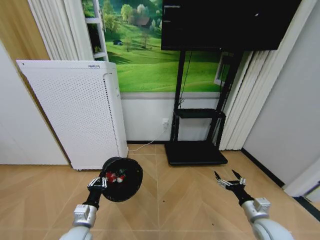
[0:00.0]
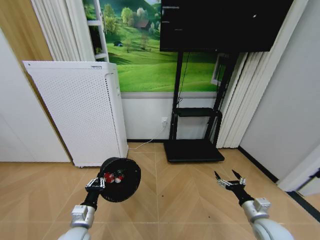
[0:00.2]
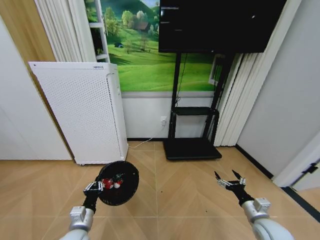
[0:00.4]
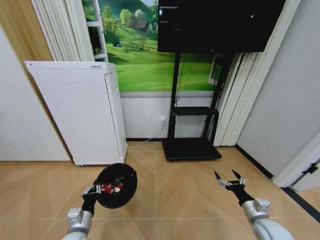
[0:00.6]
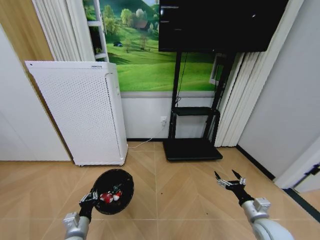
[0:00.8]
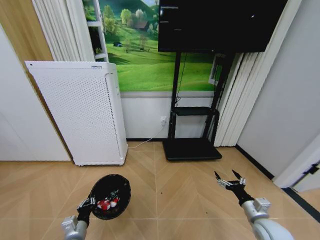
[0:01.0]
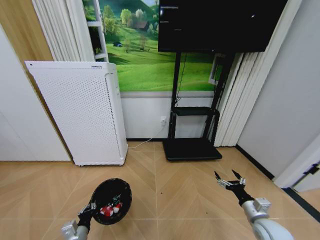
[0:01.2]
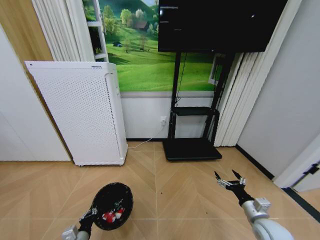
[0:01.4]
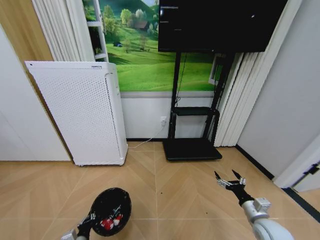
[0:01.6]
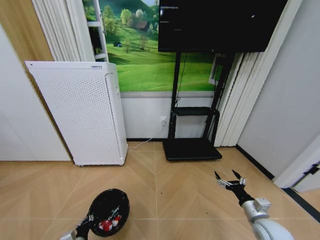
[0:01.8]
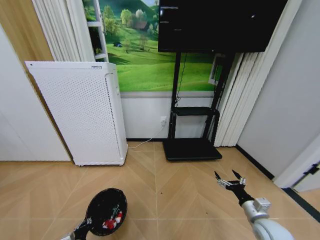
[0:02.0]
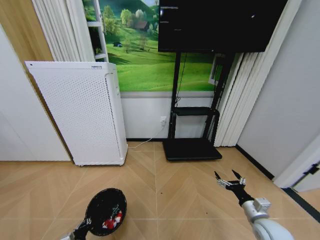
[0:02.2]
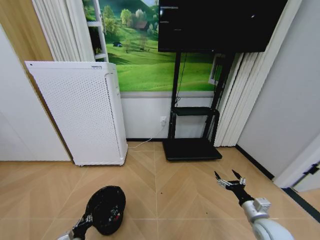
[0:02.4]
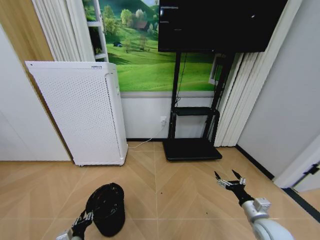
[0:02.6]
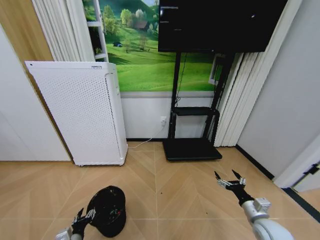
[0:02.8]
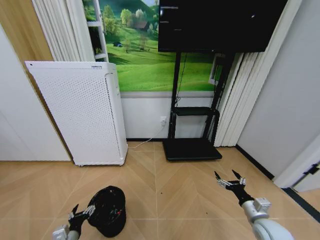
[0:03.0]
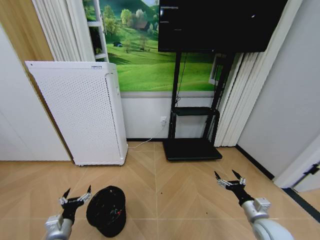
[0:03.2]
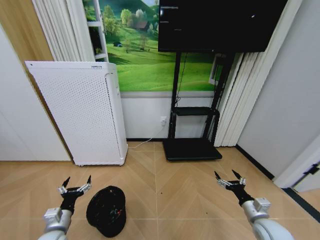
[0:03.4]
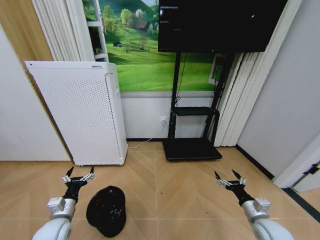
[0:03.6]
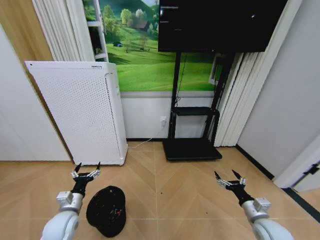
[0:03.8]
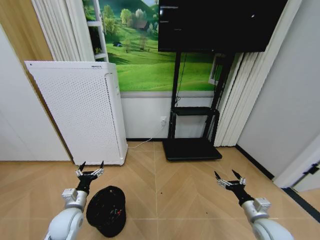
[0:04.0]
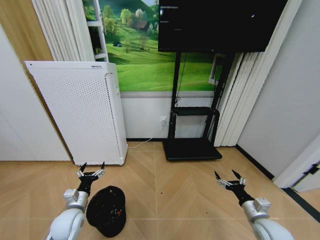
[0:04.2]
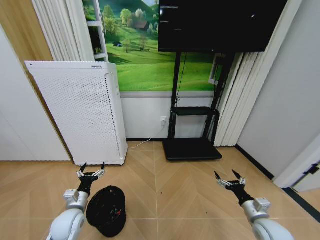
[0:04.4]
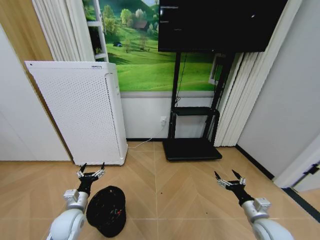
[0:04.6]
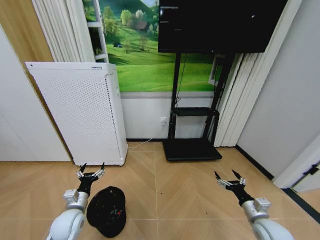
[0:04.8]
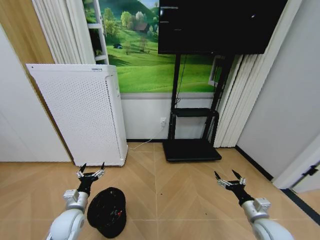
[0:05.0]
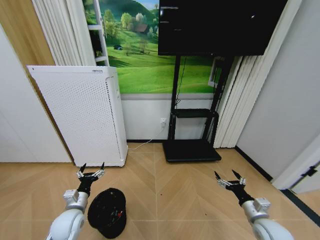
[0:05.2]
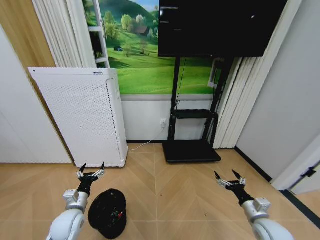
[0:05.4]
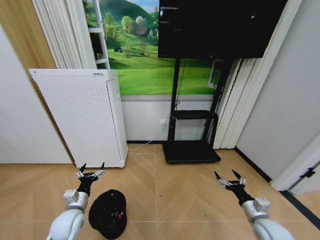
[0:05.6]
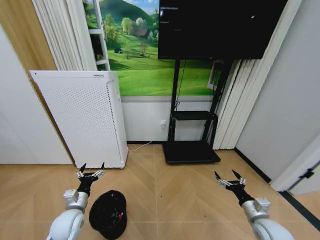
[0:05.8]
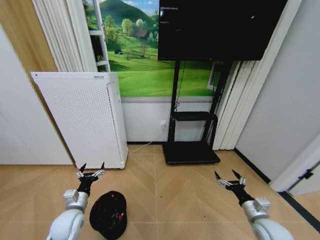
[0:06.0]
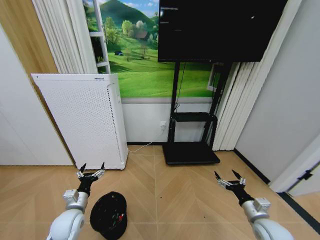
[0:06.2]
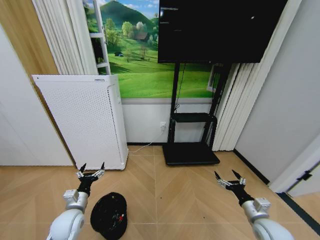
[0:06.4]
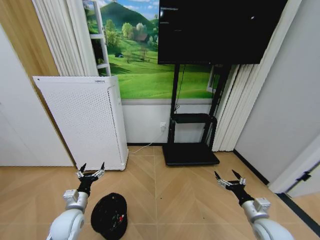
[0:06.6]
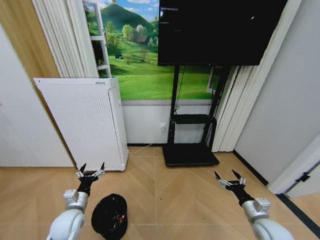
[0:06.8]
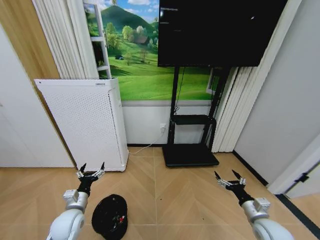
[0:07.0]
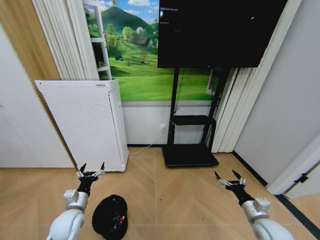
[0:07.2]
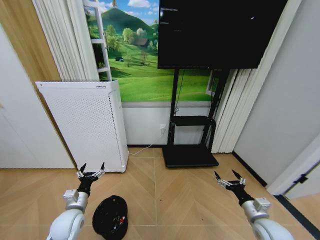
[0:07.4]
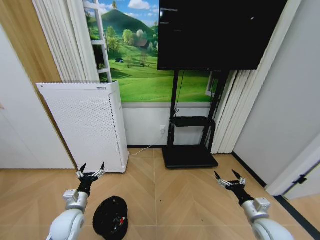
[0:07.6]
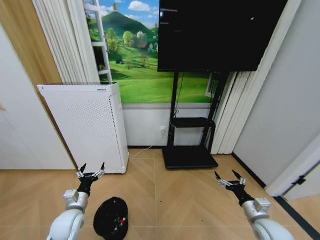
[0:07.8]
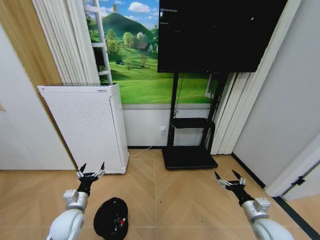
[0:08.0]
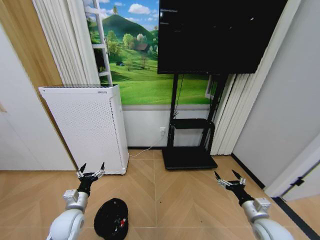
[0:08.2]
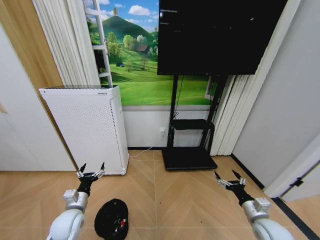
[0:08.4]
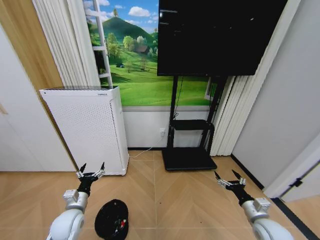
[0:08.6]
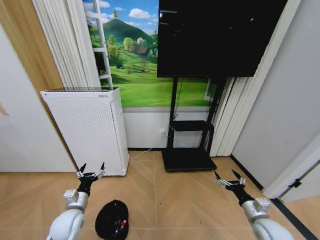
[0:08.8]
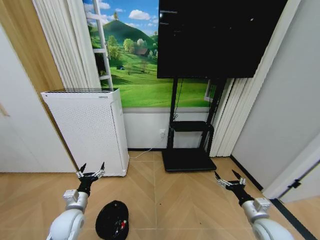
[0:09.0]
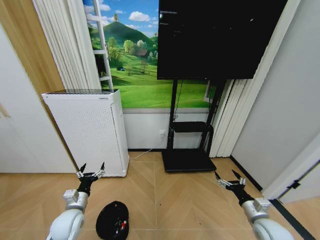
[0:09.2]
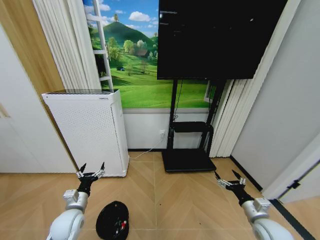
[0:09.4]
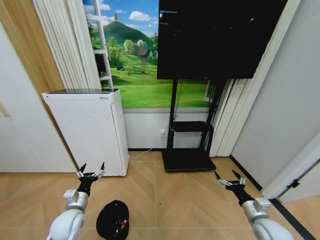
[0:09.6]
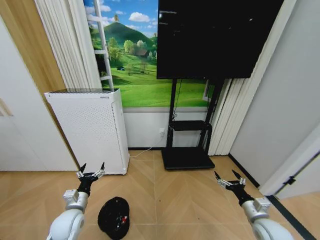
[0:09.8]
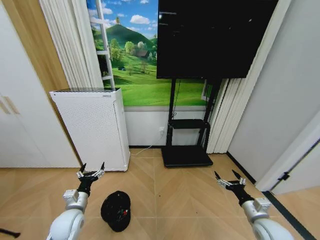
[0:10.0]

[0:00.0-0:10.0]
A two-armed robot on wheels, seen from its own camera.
Task of the whole recording: Pick up the trash bin and place the garbage on the floor into it.
0.0 to 1.4 s: The left gripper is displaced downward by about 10 cm.
1.4 to 2.8 s: The left gripper opens up.
2.8 to 4.2 s: The left gripper moves forward and upward, roughly 15 cm, and opens its fingers.
4.2 to 8.6 s: The two grippers keep their place.

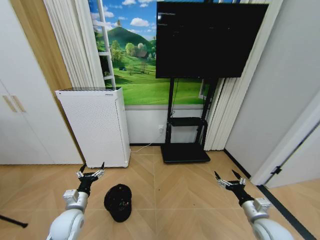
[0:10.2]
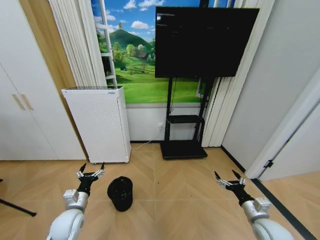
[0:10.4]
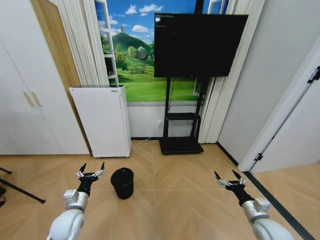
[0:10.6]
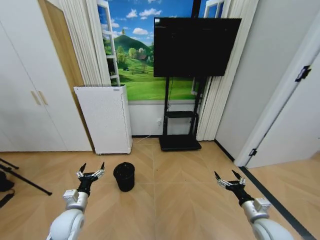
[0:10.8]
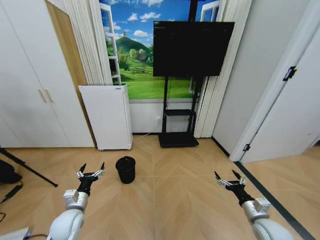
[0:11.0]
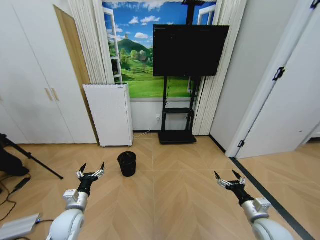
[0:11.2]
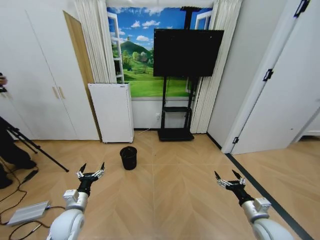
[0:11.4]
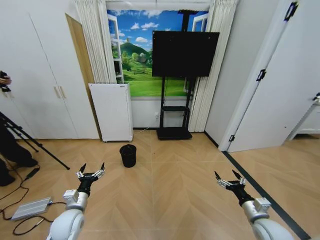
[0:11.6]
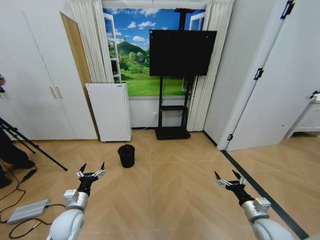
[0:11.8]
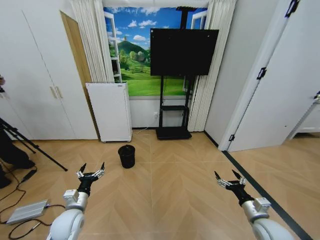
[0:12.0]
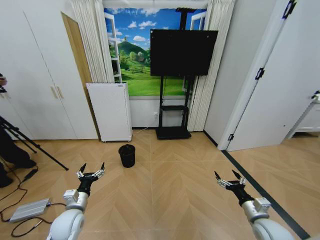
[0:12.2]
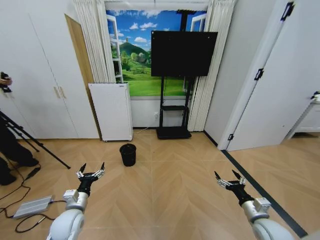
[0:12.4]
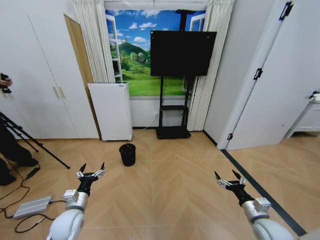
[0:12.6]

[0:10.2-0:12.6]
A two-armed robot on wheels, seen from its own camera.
Task of the whole recording: Pick up the trash bin and place the garbage on the floor into it.
11.4 to 12.6 s: The two grippers keep their place.

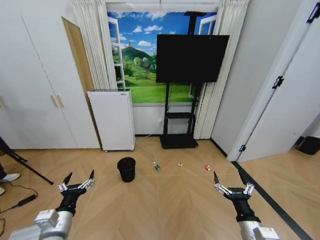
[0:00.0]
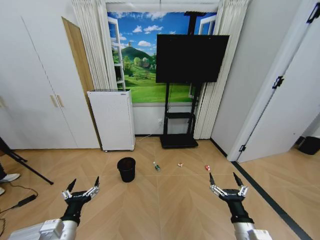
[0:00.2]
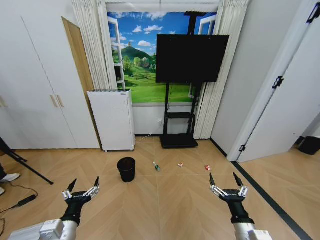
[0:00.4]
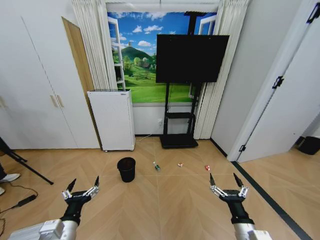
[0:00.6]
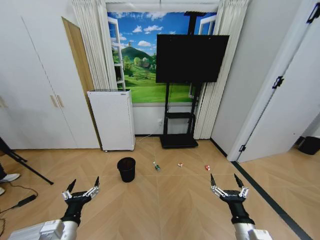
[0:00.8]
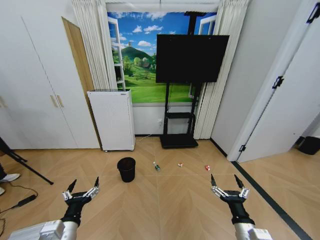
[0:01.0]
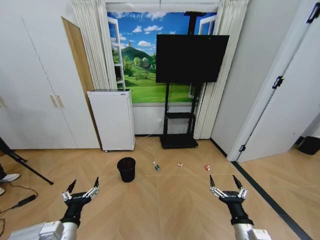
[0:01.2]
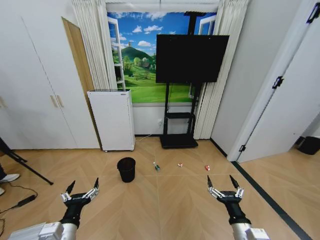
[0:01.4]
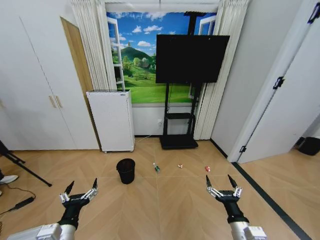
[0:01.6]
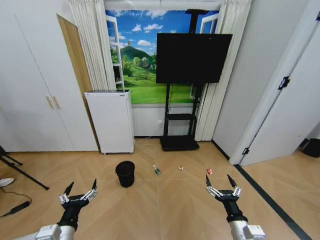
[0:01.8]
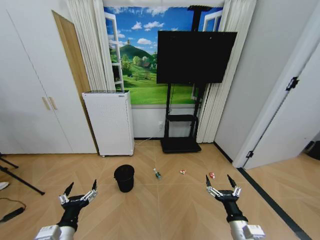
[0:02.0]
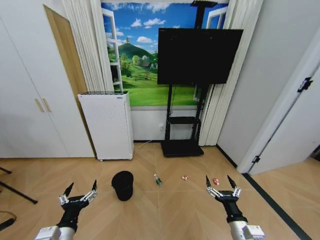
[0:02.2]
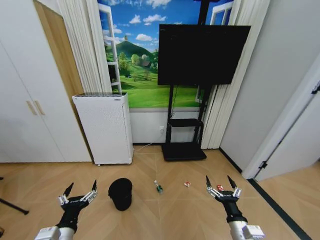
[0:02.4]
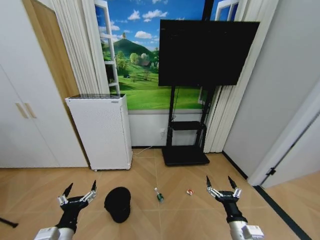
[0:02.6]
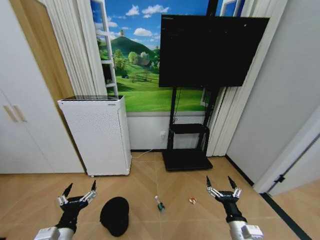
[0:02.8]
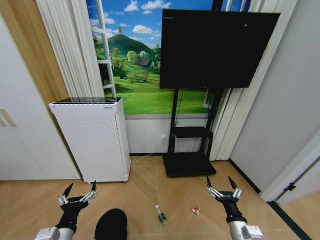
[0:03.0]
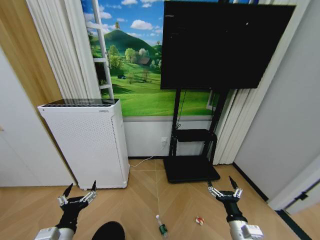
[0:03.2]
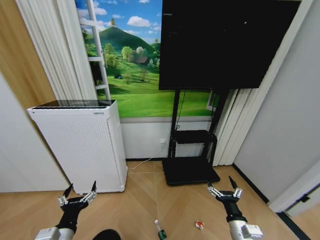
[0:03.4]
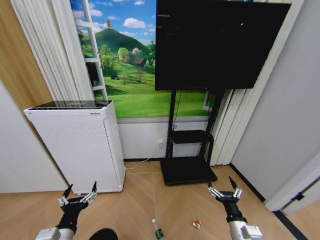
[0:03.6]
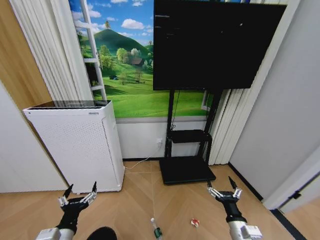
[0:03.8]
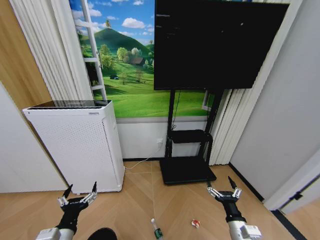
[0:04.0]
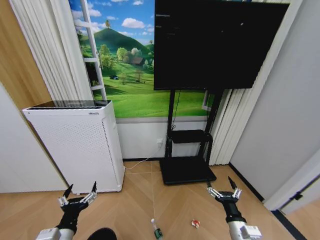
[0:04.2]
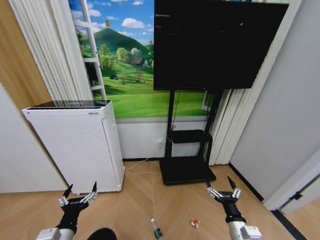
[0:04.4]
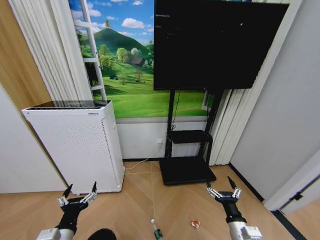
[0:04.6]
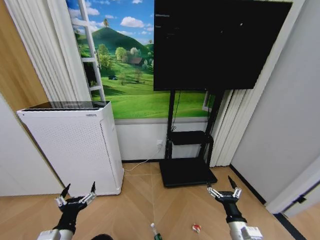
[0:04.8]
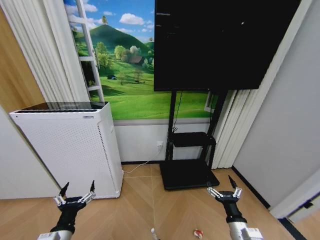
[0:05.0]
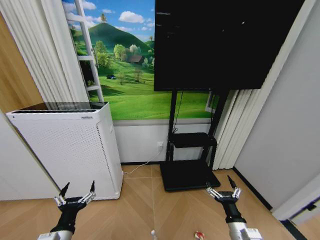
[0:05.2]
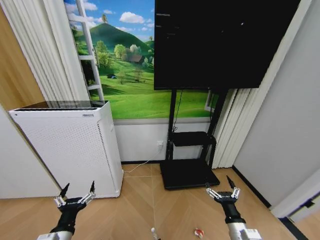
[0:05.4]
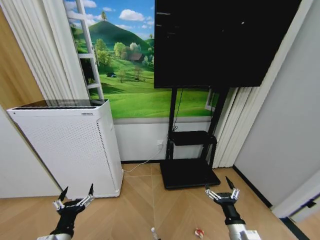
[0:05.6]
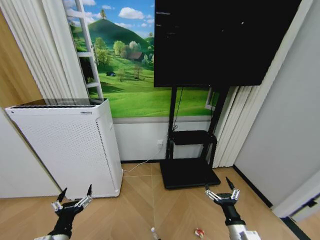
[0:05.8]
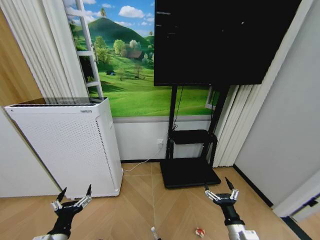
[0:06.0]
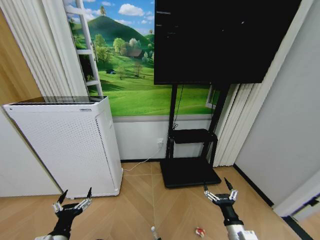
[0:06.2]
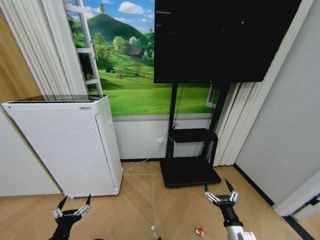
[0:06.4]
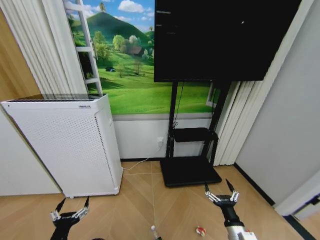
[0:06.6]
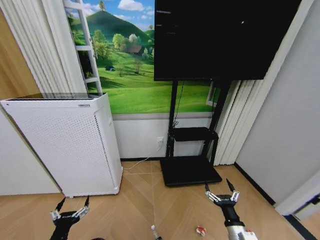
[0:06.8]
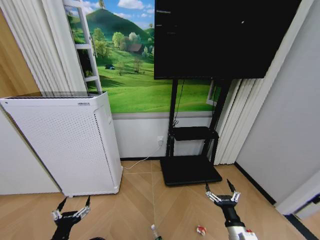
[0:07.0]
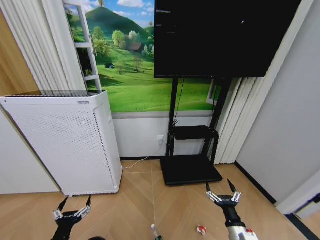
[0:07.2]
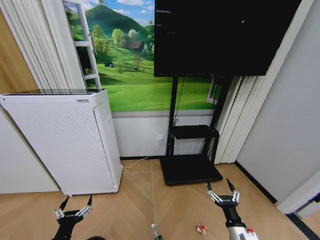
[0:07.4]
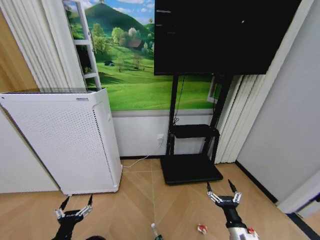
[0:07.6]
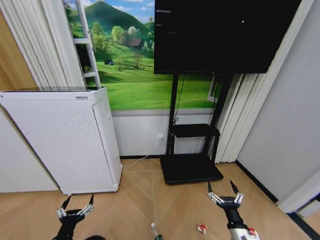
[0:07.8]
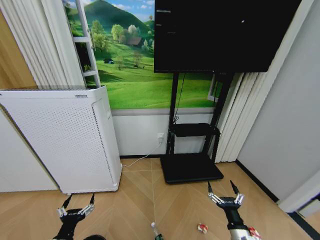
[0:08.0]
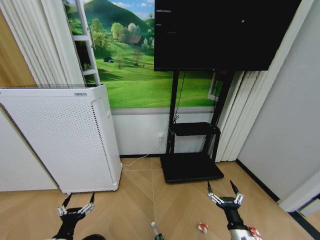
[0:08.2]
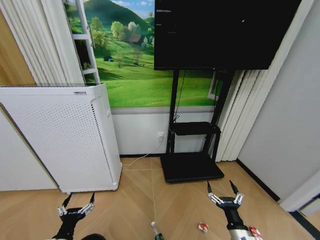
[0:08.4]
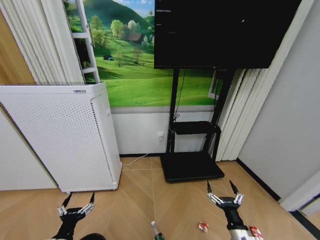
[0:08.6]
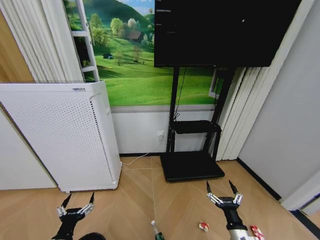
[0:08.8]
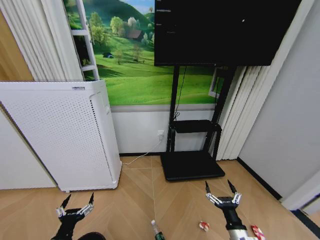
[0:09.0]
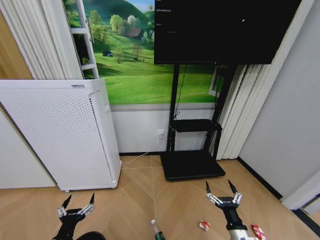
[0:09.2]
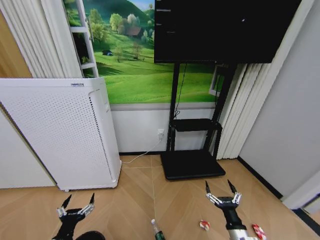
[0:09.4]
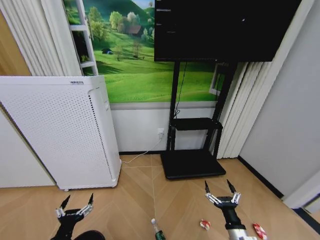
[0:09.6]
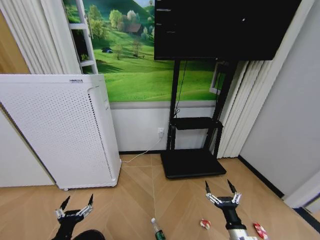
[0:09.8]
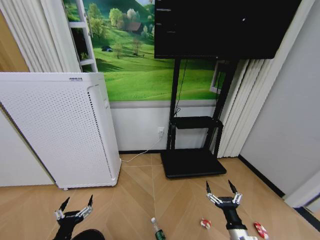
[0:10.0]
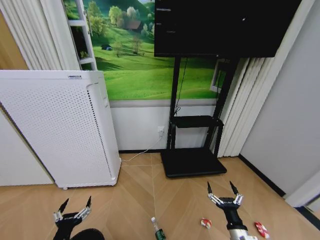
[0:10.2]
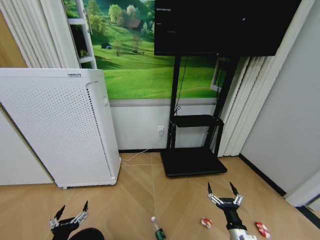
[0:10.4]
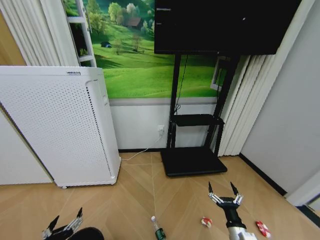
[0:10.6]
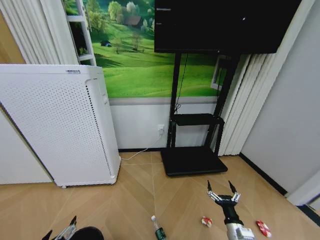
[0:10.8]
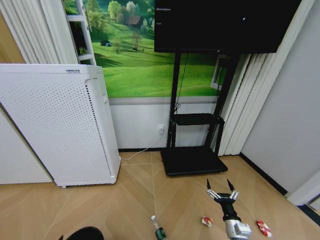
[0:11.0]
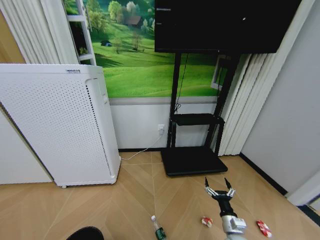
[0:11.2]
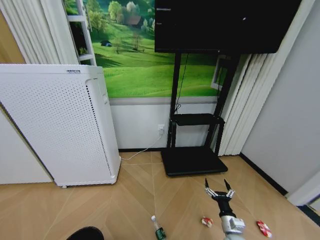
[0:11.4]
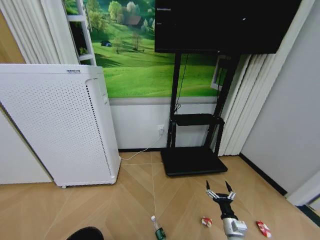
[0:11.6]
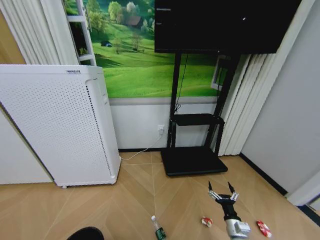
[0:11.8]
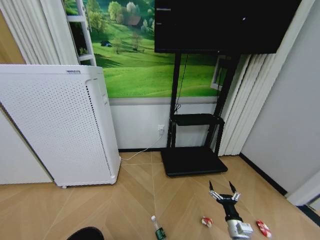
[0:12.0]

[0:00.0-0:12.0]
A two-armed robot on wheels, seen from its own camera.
Task of the whole recording: Pick up the trash bin and place the garbage on the floor into it.
6.0 to 7.6 s: The grippers move only a little.
7.6 to 9.0 s: Both grippers stay put.
9.0 to 10.4 s: There are only small adjustments of the grippers.
10.4 to 12.0 s: The left gripper shifts roughly 10 cm backward, to the left and downward. Meanwhile the right gripper heads downward, covering roughly 5 cm.
